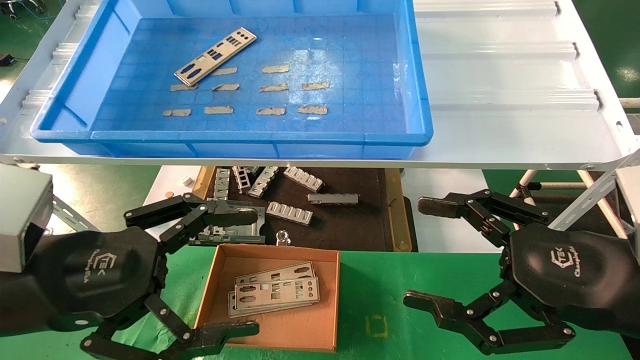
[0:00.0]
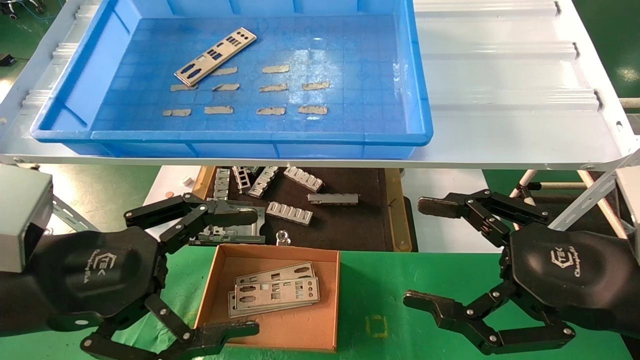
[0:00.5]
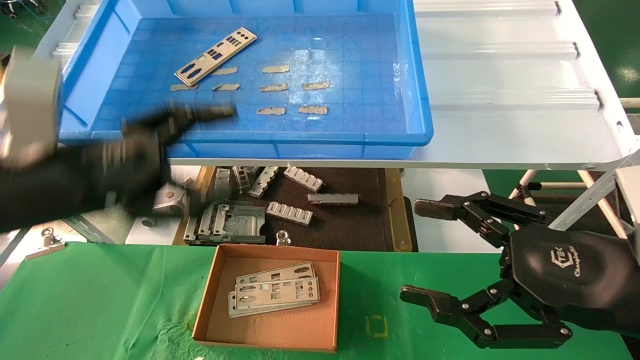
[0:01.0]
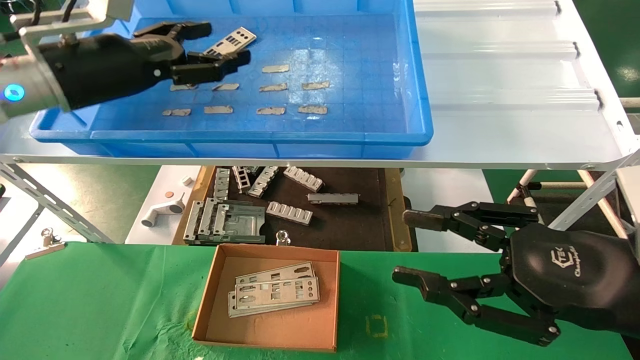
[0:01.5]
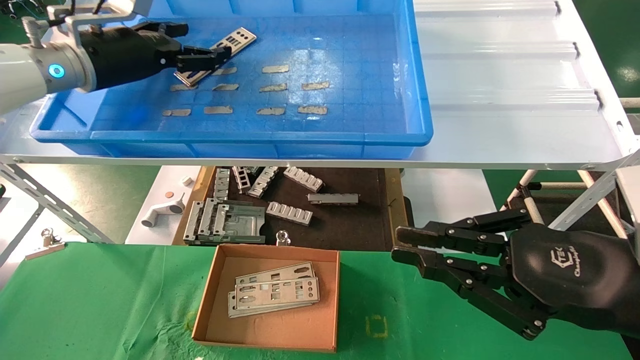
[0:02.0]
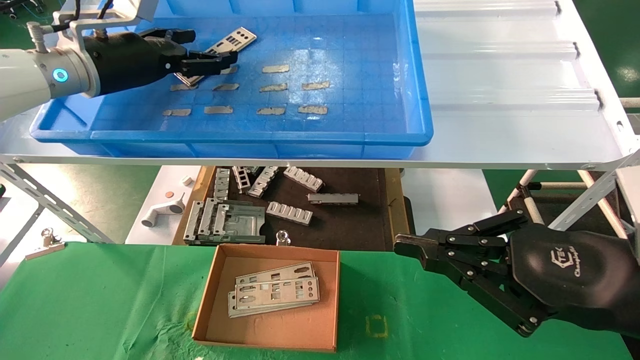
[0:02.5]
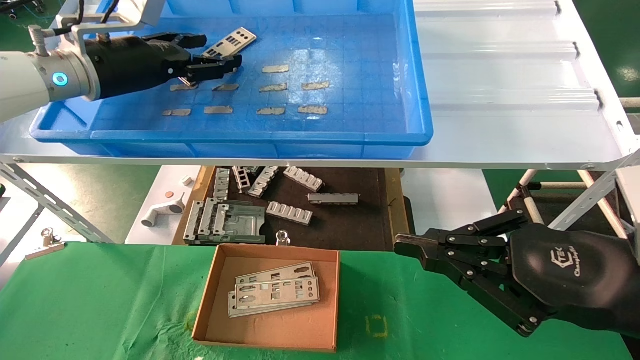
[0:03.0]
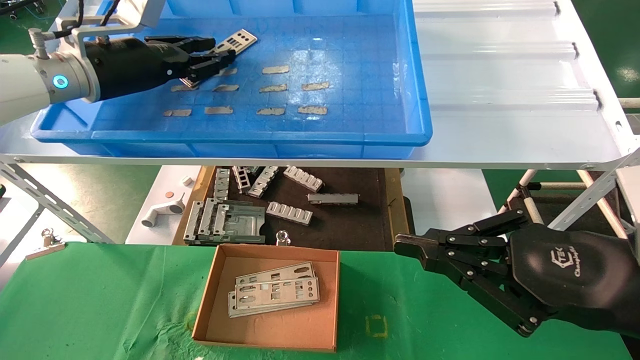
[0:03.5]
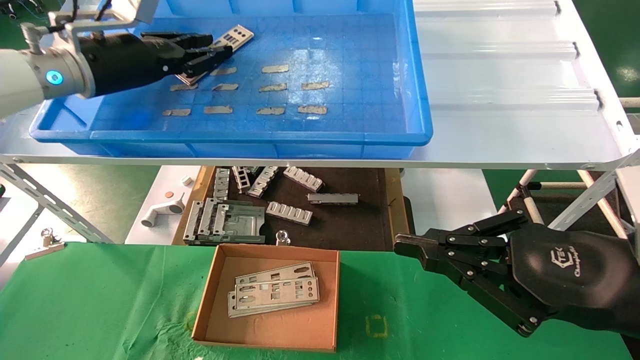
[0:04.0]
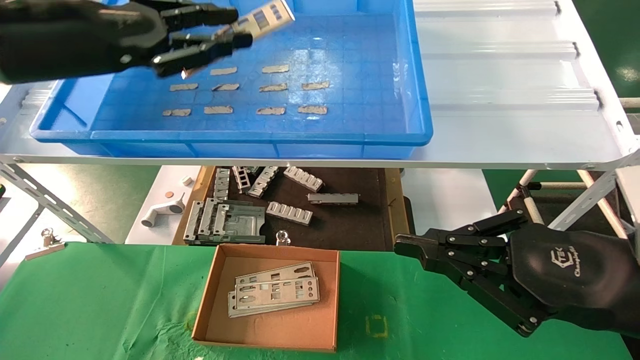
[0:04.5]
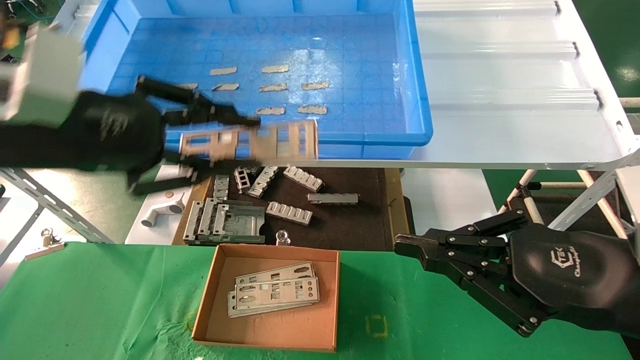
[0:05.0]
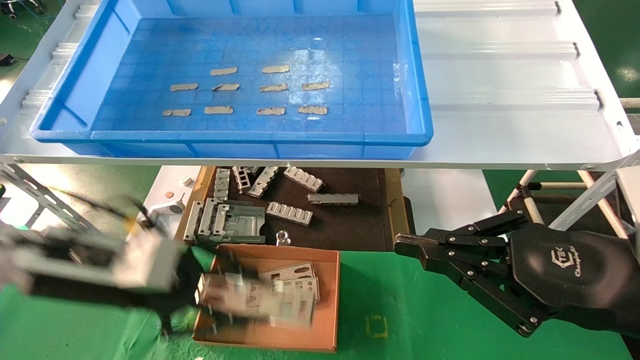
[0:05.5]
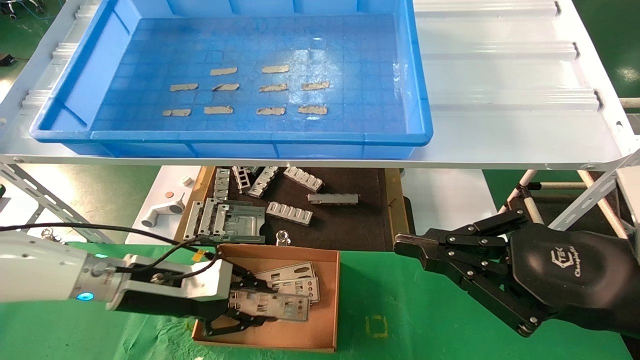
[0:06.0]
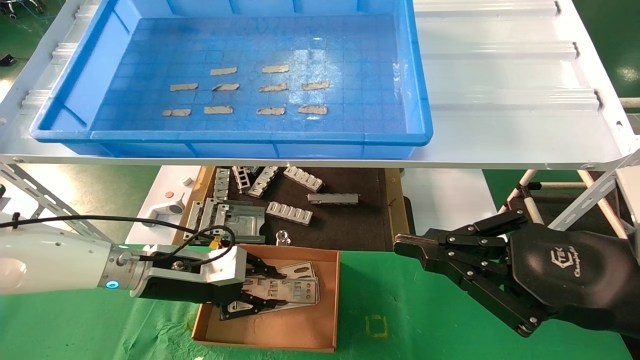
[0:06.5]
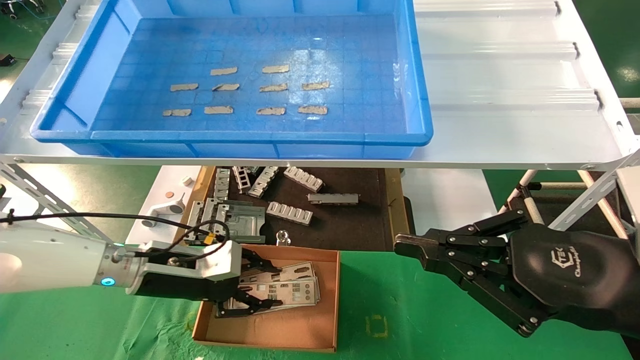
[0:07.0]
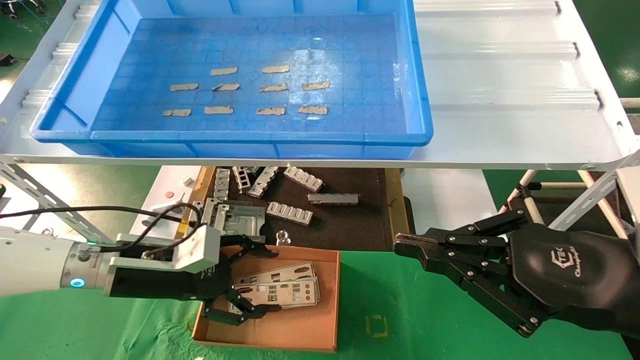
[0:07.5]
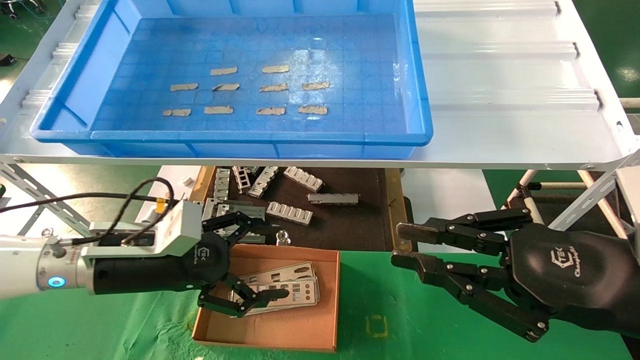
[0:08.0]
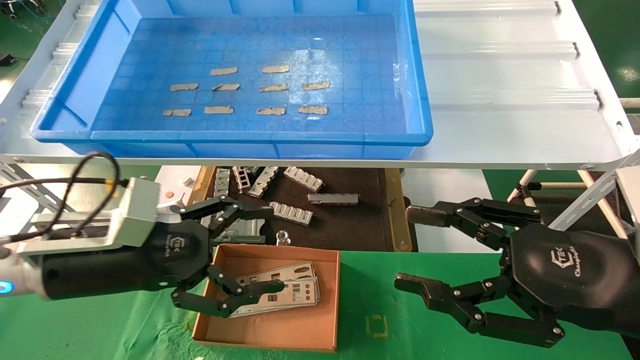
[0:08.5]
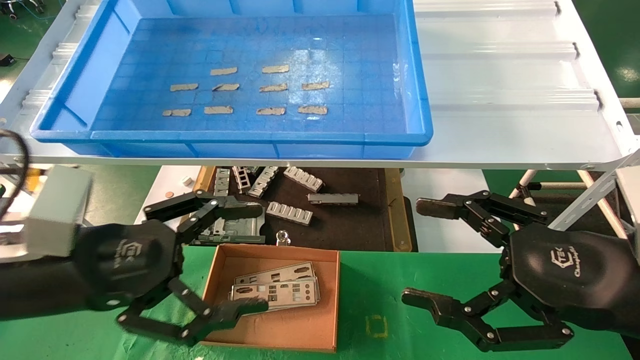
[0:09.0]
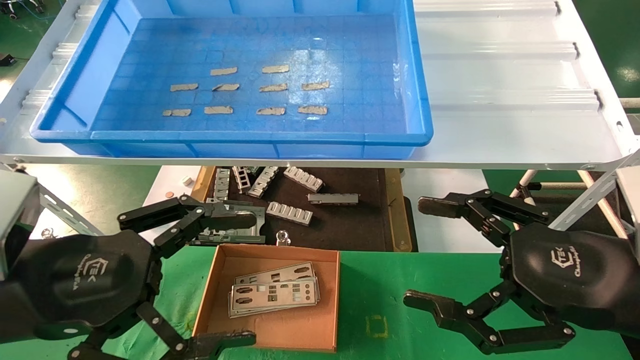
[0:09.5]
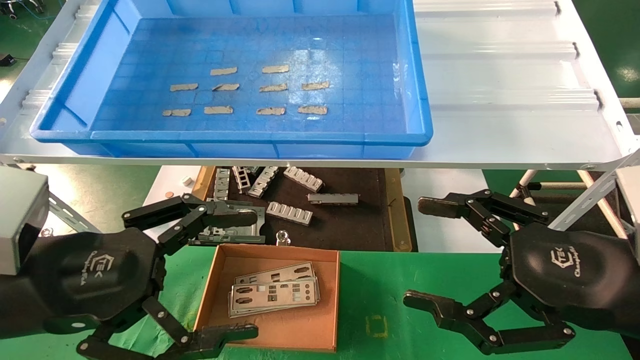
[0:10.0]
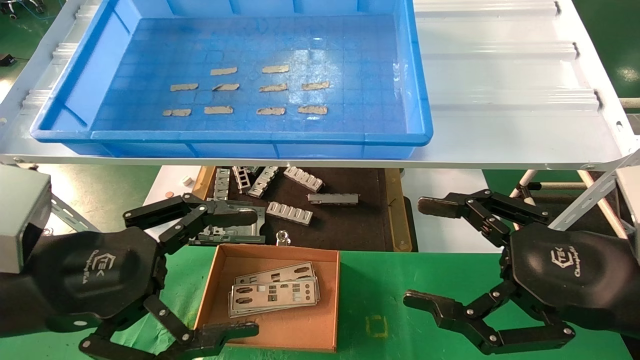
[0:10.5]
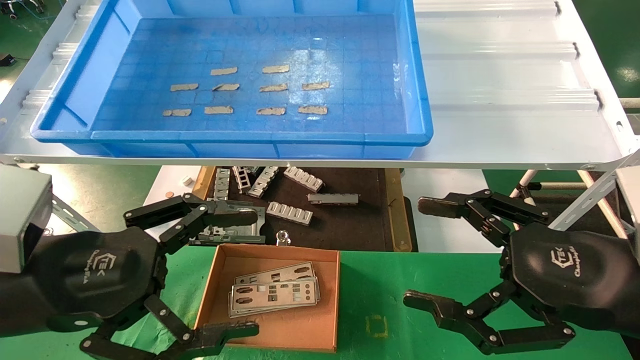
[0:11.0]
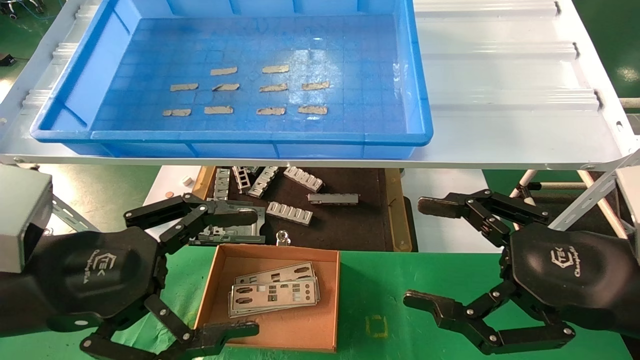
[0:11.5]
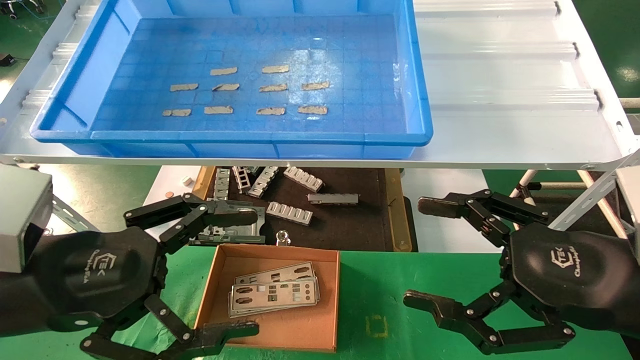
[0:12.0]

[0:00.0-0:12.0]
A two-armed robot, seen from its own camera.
Task of the whole recording: pick up the parts on the tray and put them in the cardboard box.
Step, 0:01.0 to 0:04.0: Pick up the IO bracket from the container box.
Step, 0:04.5 to 0:07.0: Place the IO bracket into the ingredient slot.
0:00.0 to 0:02.0: The right gripper closes up. Meanwhile the left gripper is displaced forward and upward by about 30 cm.
0:02.0 to 0:04.0: The left gripper closes its fingers.
0:04.0 to 0:06.0: The left gripper travels downward by approximately 25 cm.
0:06.0 to 0:08.0: The left gripper opens its fingers.
0:08.0 to 0:10.0: The right gripper opens up. The left gripper heads backward and upward, covering roughly 15 cm.
0:10.0 to 0:12.0: Both grippers stay put.

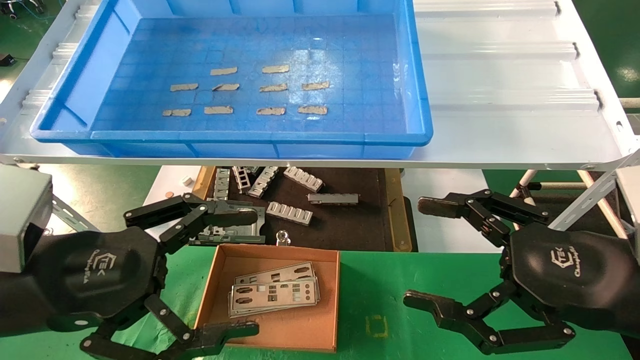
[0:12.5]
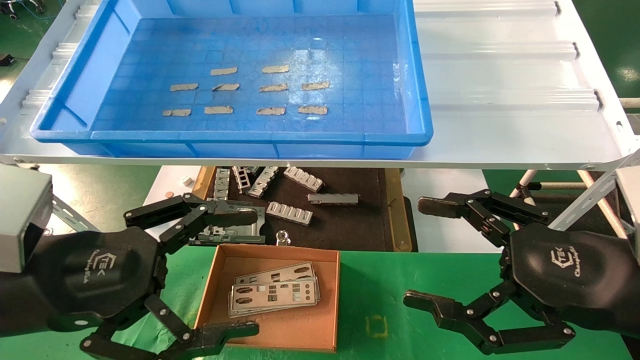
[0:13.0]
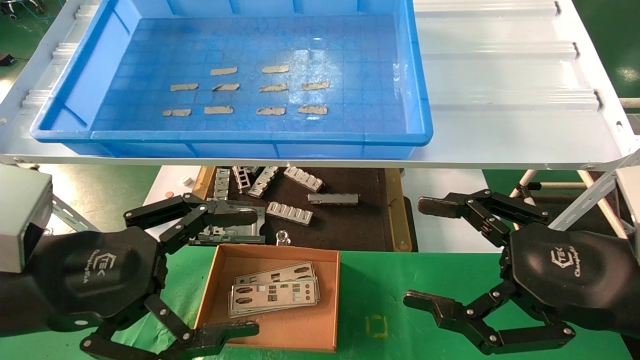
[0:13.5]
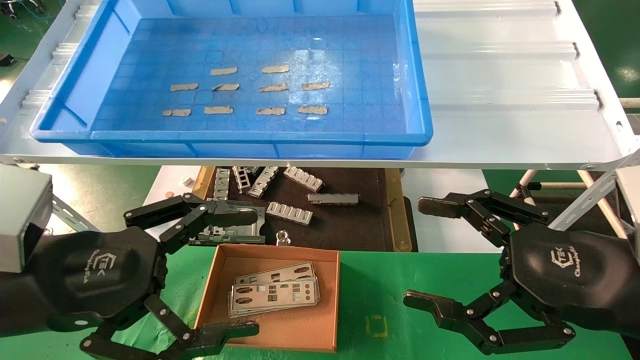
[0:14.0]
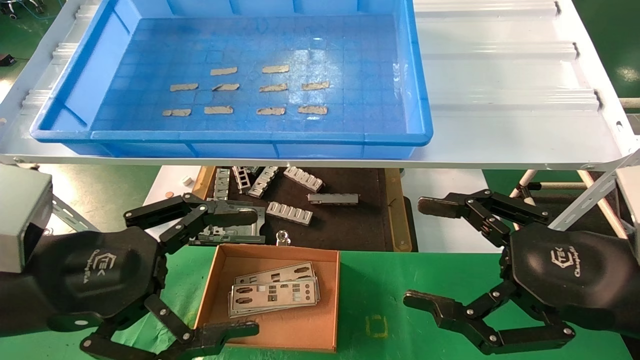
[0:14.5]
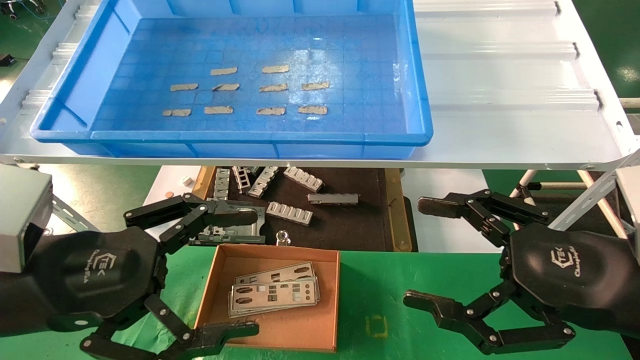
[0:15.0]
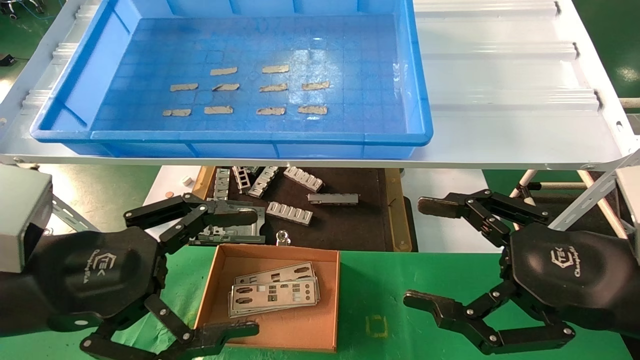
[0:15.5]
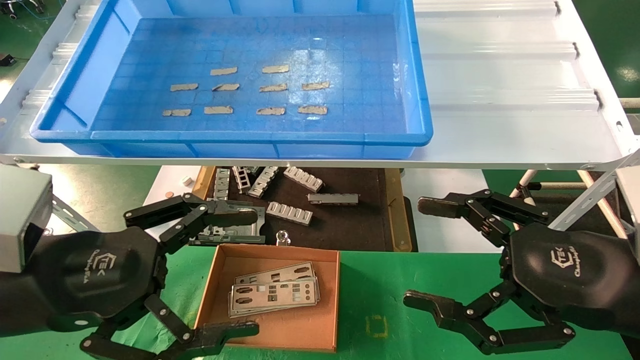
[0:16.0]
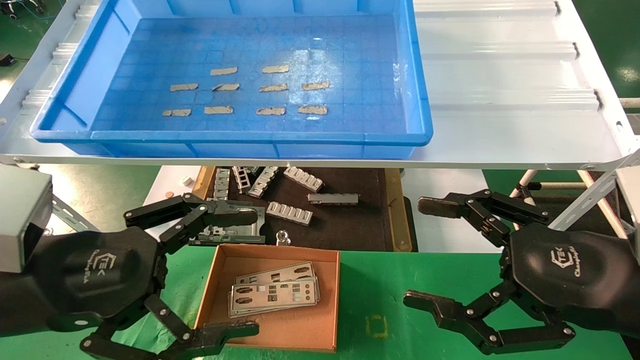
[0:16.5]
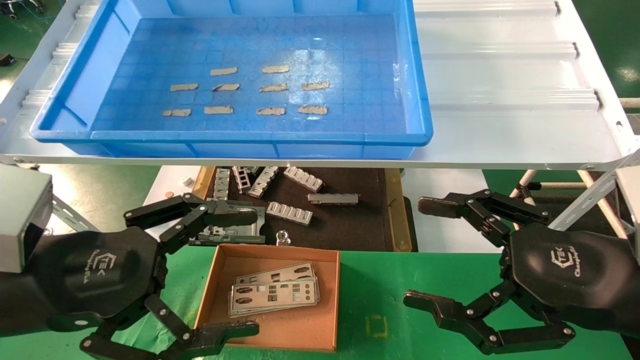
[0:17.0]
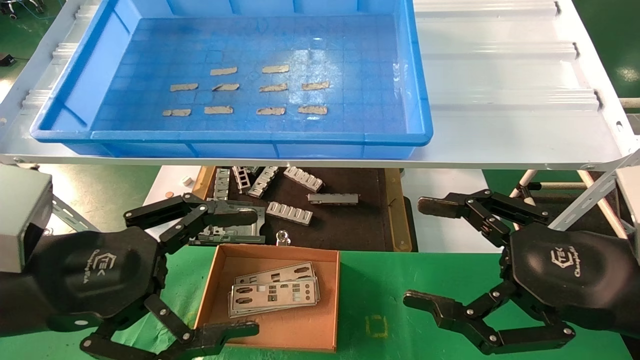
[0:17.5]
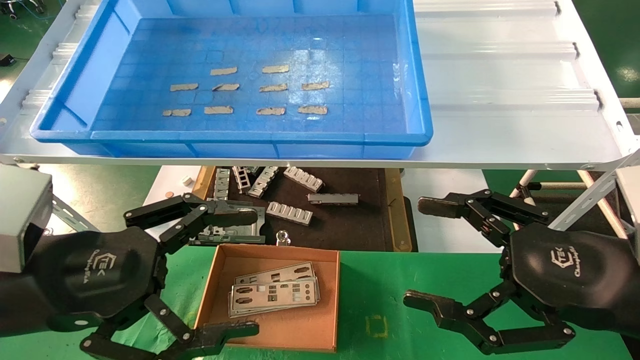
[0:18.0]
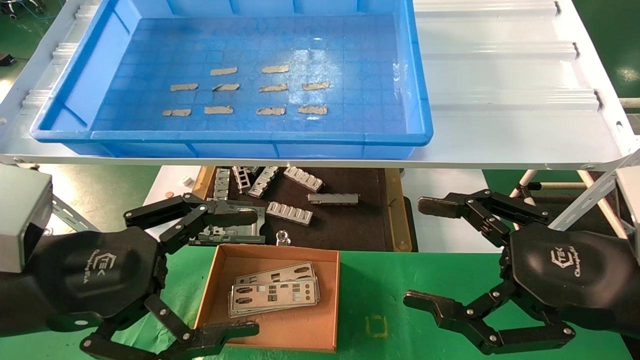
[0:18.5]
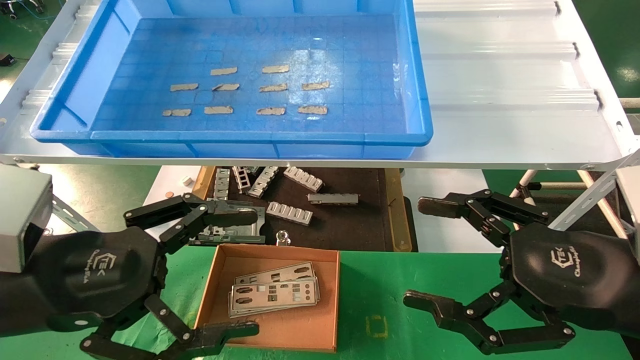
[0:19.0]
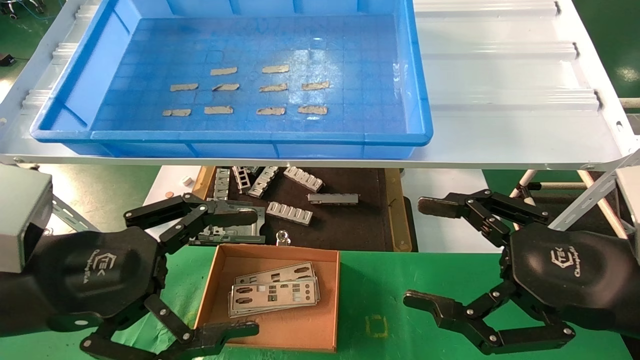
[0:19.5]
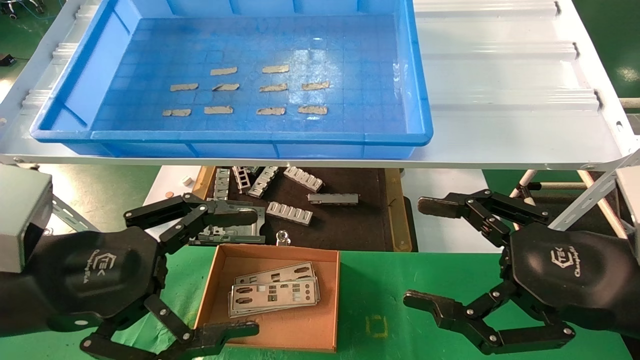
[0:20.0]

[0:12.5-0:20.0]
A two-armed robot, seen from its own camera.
Task of the whole recording: pick up the parts on the tray and put them in the cardboard box.
0:12.5 to 0:20.0: Neither gripper changes place.
